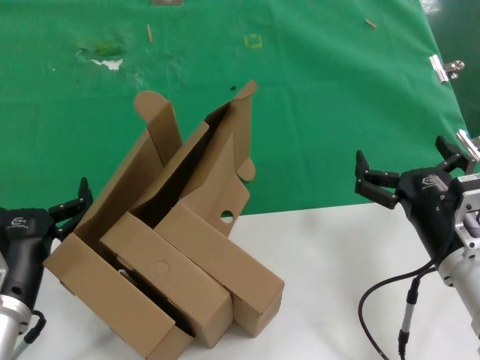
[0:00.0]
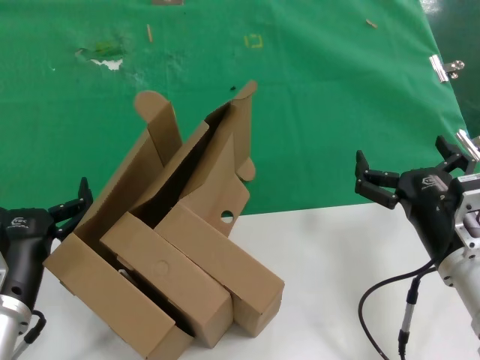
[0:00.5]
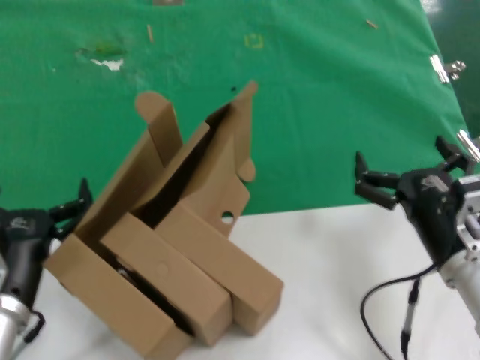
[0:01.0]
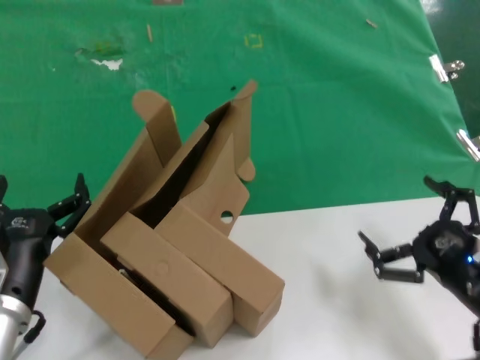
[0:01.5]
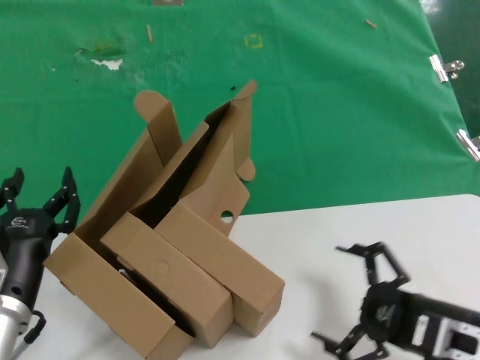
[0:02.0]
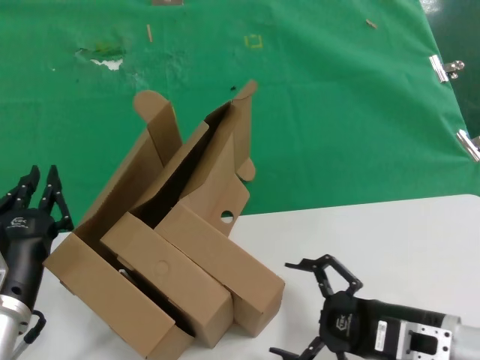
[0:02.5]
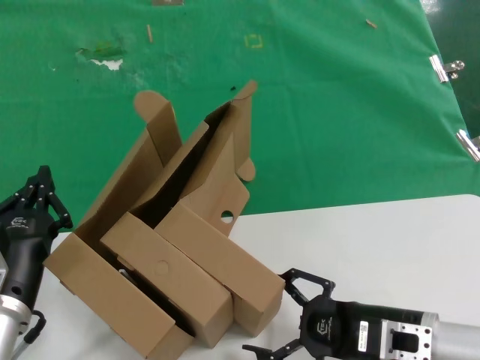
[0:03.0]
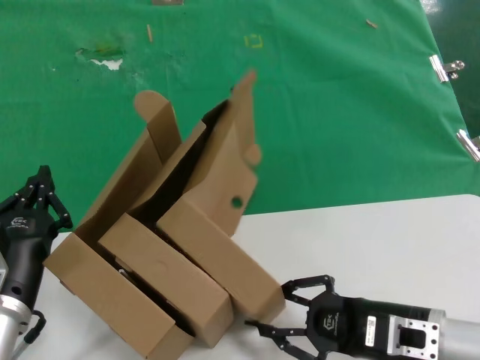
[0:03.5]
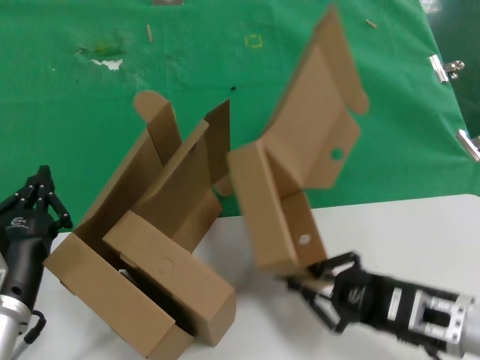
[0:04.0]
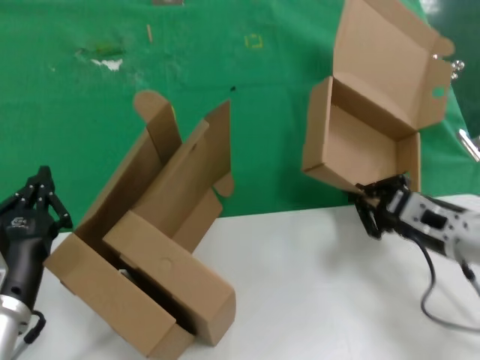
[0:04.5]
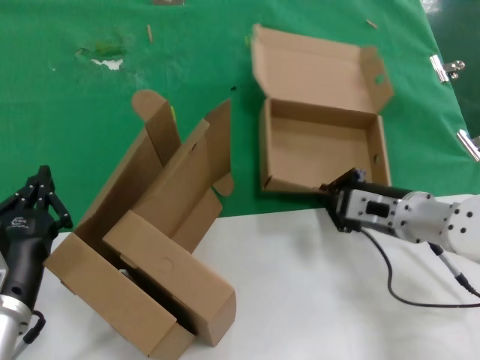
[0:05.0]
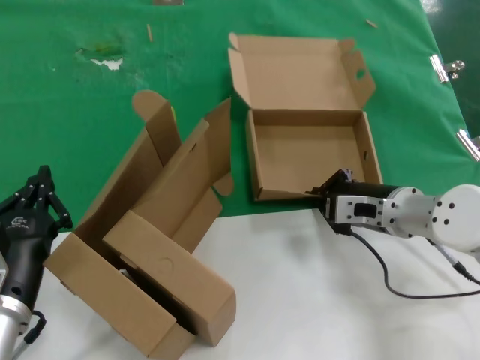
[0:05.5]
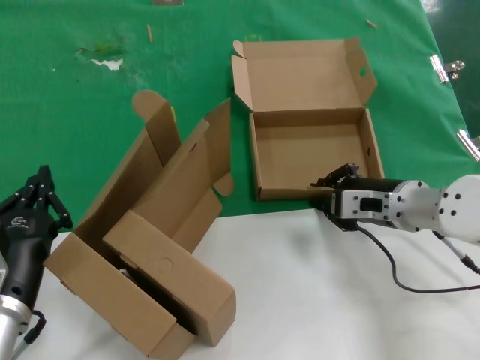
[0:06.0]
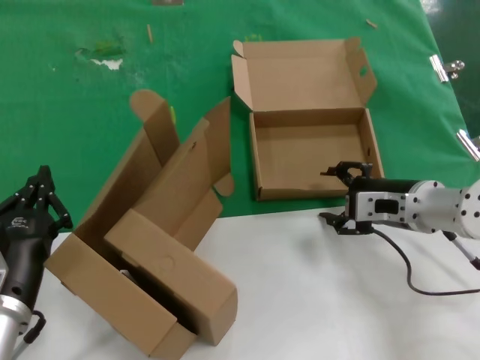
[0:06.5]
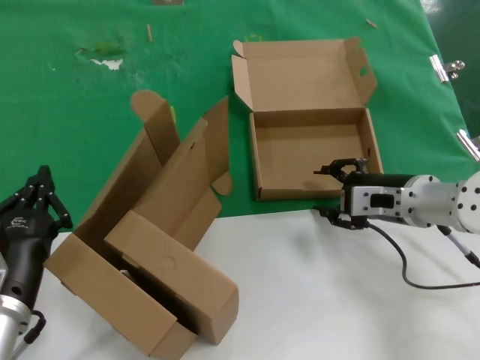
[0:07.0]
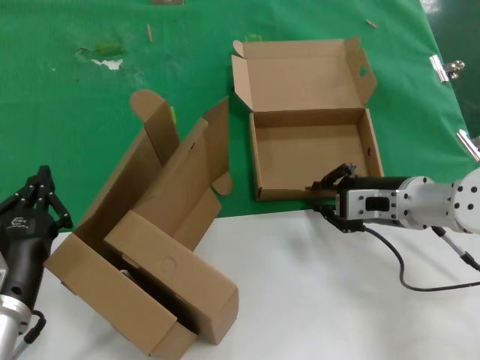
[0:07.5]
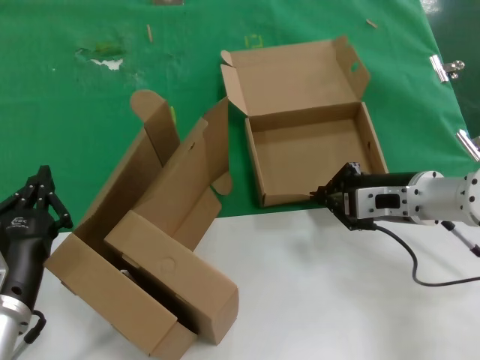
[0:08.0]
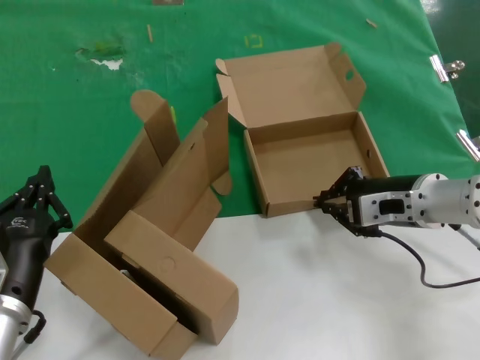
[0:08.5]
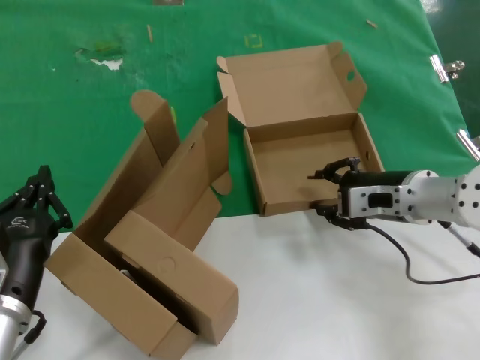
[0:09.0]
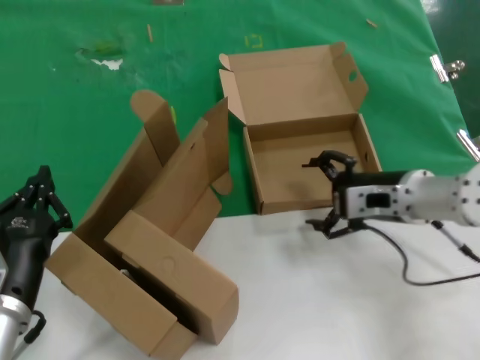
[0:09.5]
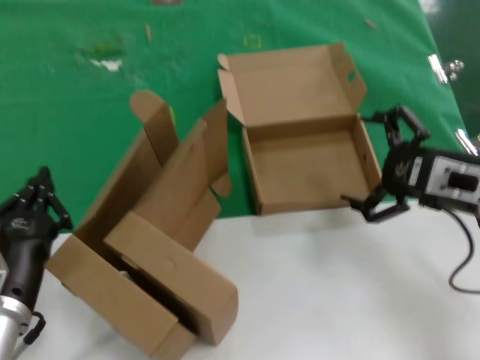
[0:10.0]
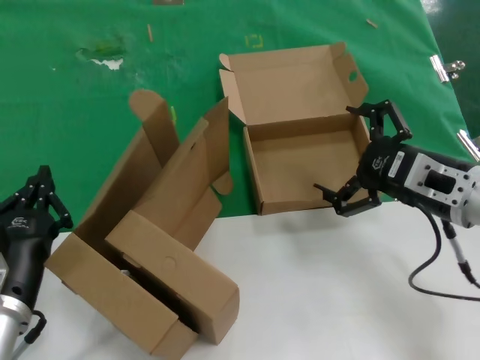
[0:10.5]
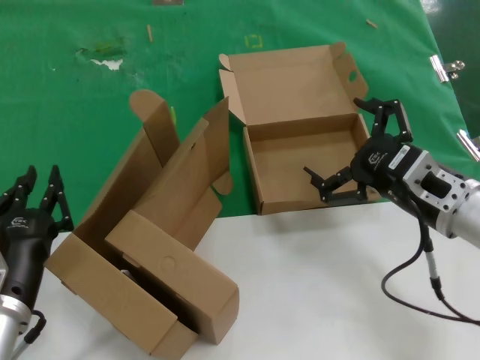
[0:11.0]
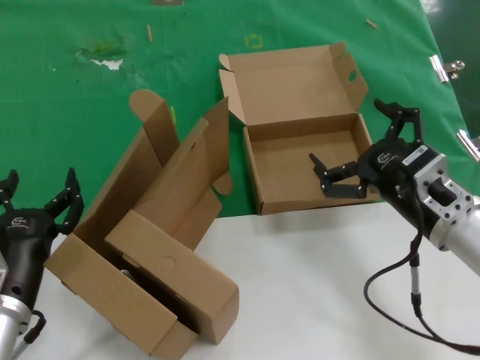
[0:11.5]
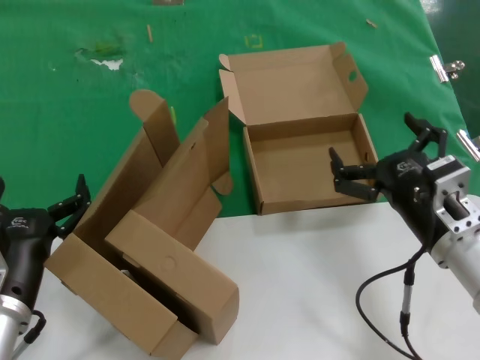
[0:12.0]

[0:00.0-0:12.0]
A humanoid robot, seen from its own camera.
Task of the whole recording: pick up the paper box and put it at the back.
Step, 0:00.0 to 0:03.5: Grasp the paper box.
Step, 0:04.0 to 0:06.0: Place the paper box on the table.
Step, 0:06.5 to 0:07.5: Grasp the paper box.
Step, 0:08.0 to 0:08.5: Place the paper box on the table.
0:00.0 to 0:02.0: The right hand travels backward and to the right by some 10 cm.
0:04.0 to 0:06.0: The right hand travels forward by some 20 cm.
0:06.0 to 0:08.0: There are only small adjustments of the hands.
0:08.0 to 0:10.0: The right hand is displaced backward and upward by roughly 10 cm.
0:10.0 to 0:12.0: The right hand heads downward and to the left, covering some 10 cm.
